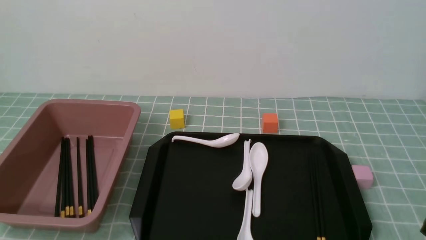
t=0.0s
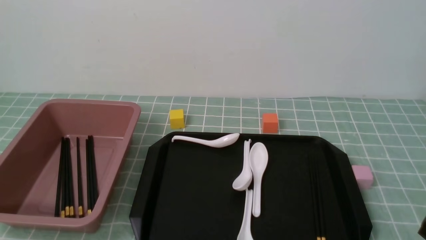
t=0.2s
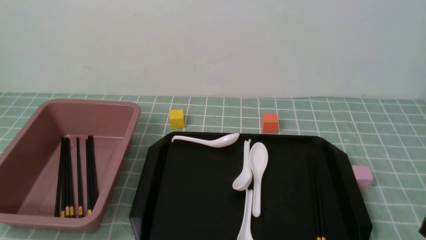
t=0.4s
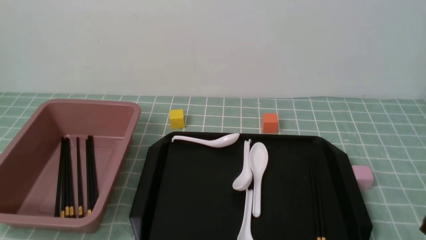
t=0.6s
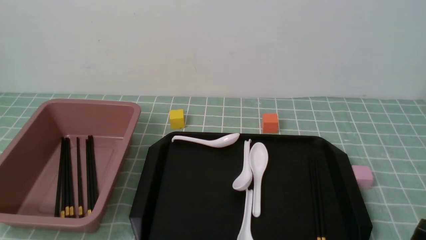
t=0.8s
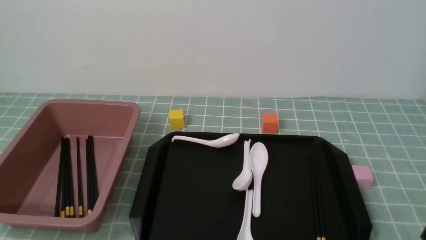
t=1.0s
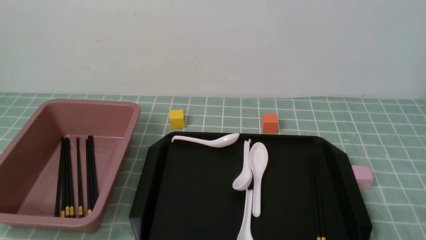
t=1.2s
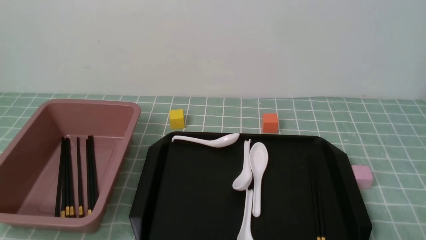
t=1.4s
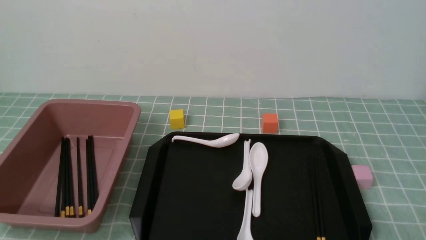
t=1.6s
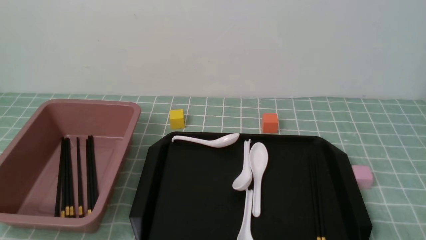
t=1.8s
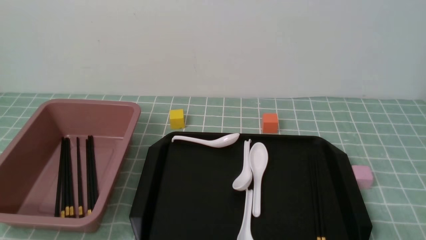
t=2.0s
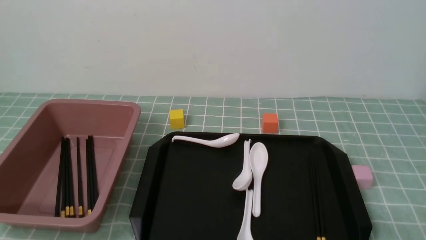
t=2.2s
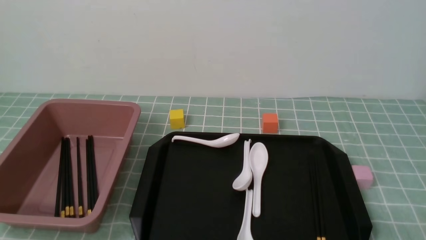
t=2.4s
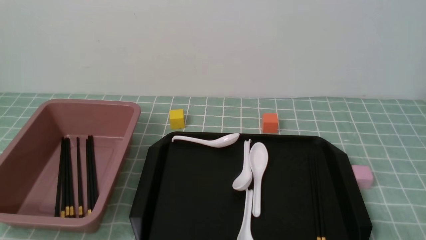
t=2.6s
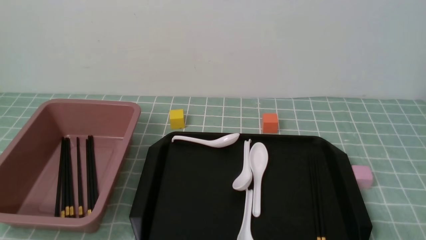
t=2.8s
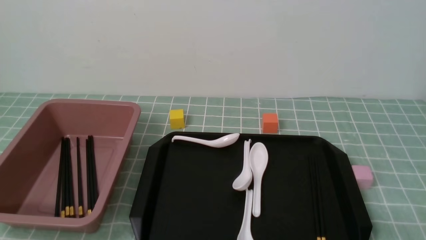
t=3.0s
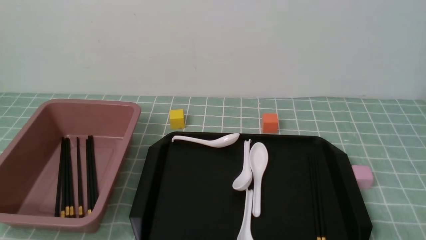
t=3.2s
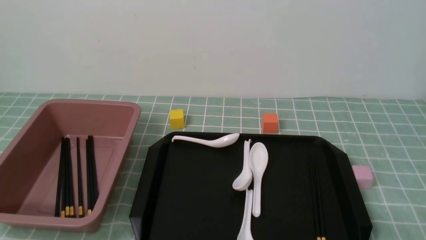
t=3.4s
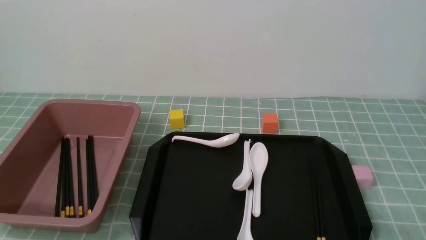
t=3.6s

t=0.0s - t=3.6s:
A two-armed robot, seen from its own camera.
t=1.8s - t=3.6s: Neither gripper changes place.

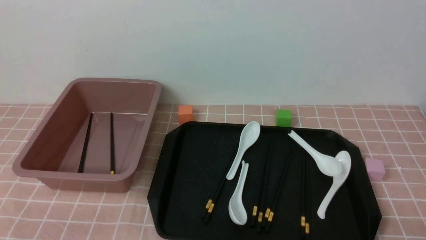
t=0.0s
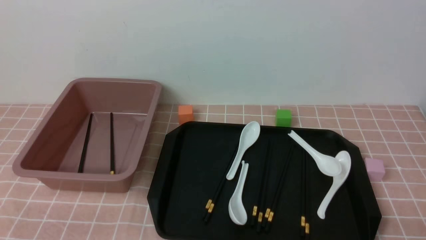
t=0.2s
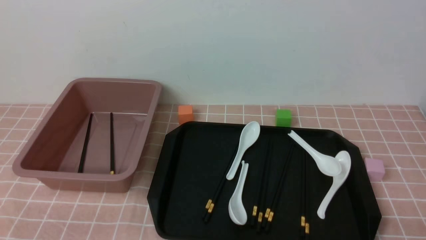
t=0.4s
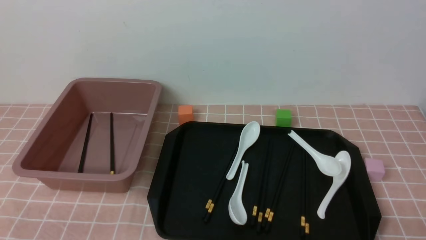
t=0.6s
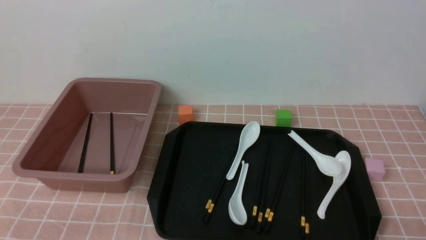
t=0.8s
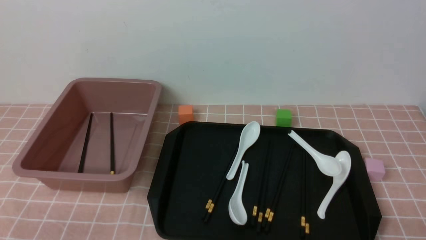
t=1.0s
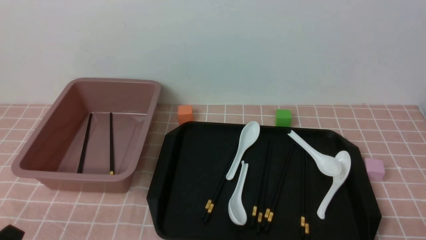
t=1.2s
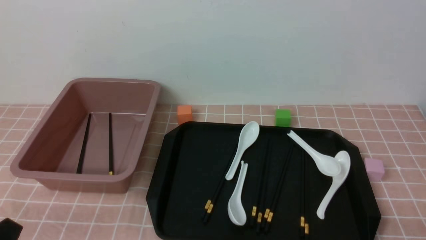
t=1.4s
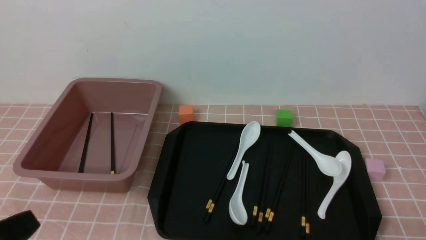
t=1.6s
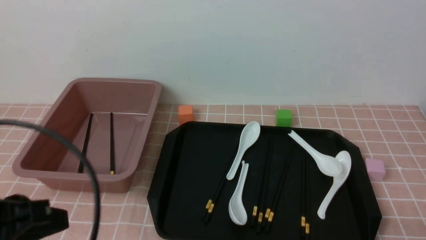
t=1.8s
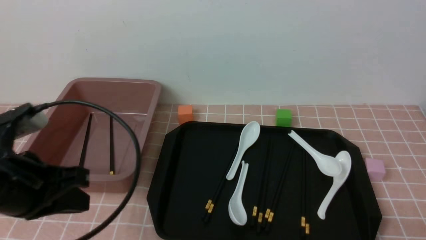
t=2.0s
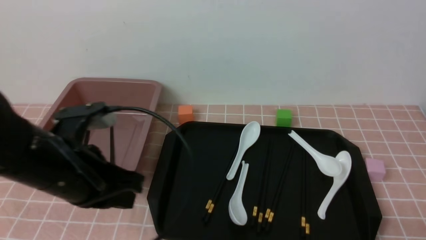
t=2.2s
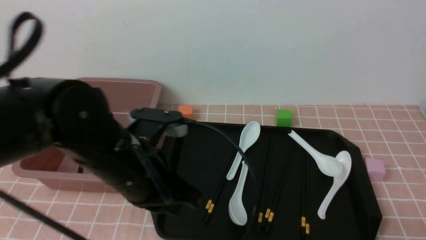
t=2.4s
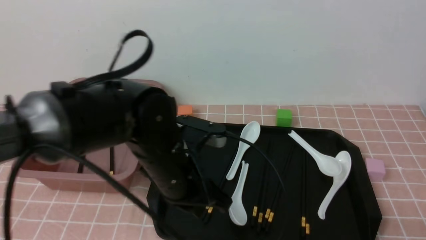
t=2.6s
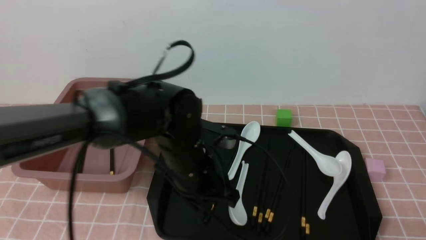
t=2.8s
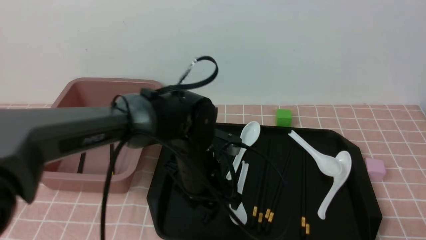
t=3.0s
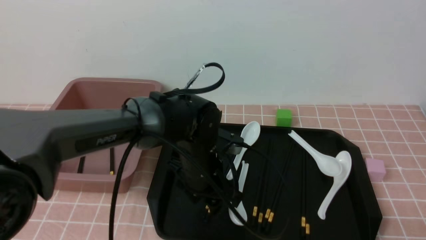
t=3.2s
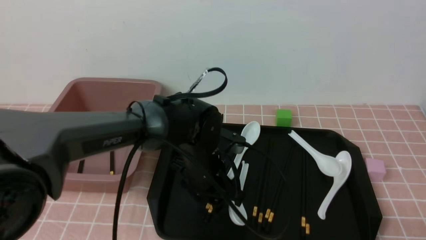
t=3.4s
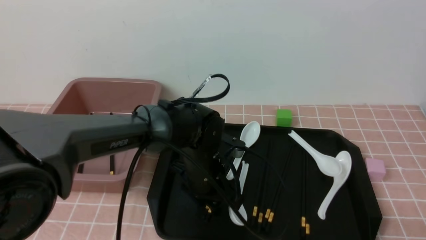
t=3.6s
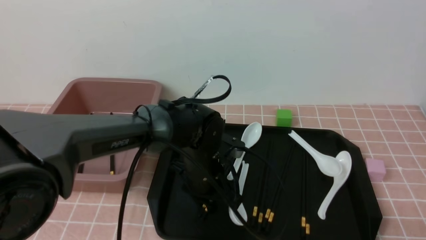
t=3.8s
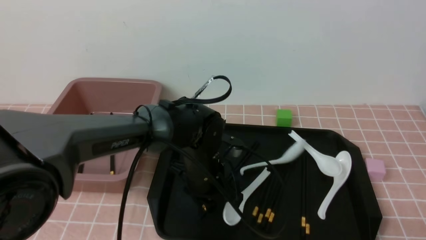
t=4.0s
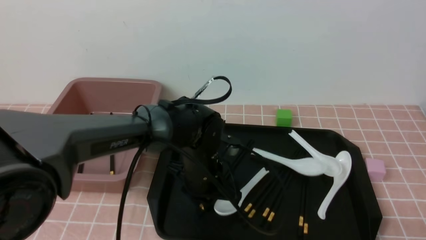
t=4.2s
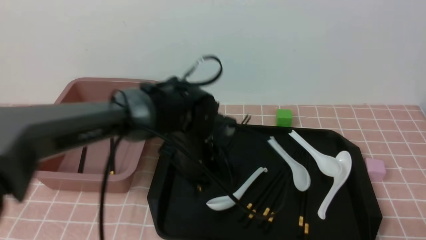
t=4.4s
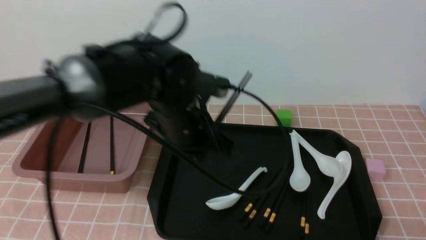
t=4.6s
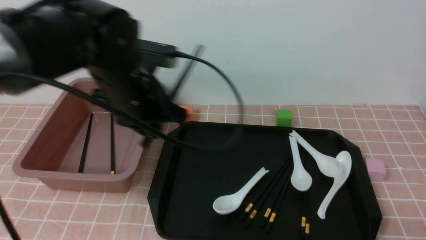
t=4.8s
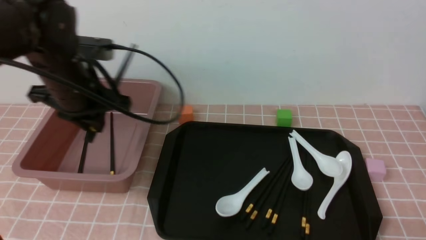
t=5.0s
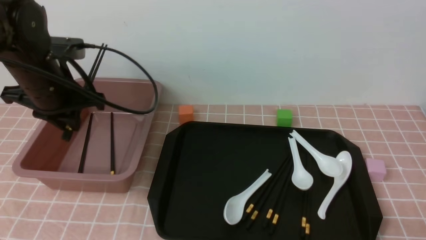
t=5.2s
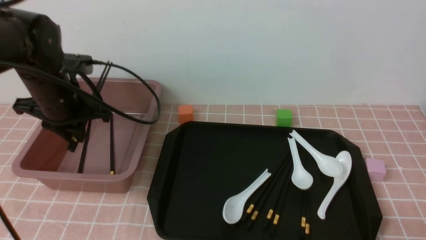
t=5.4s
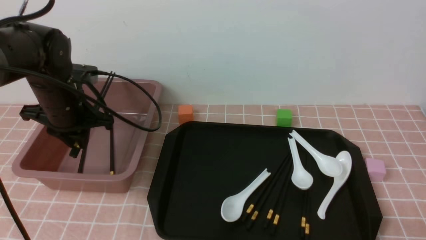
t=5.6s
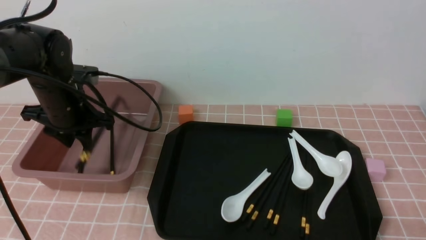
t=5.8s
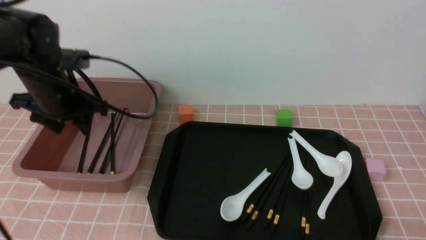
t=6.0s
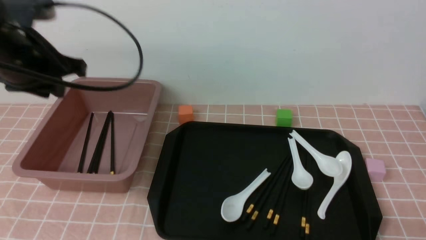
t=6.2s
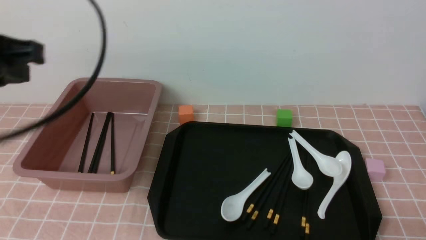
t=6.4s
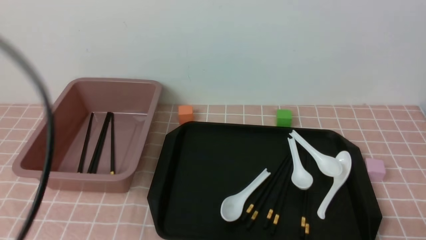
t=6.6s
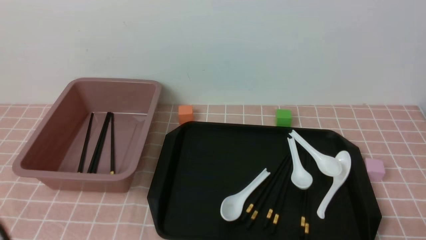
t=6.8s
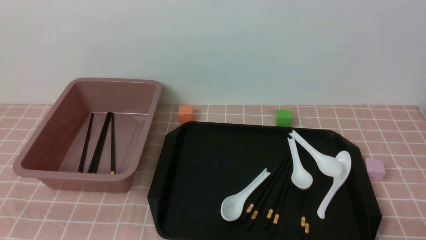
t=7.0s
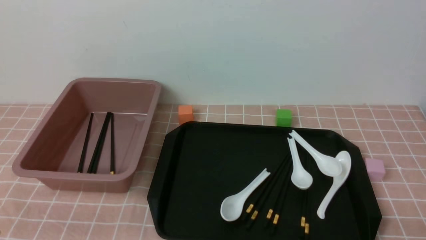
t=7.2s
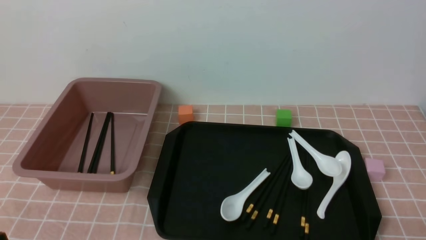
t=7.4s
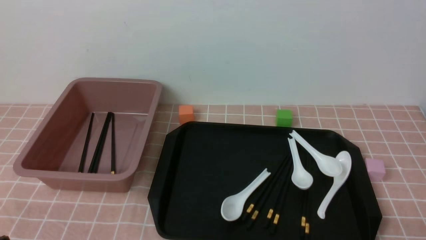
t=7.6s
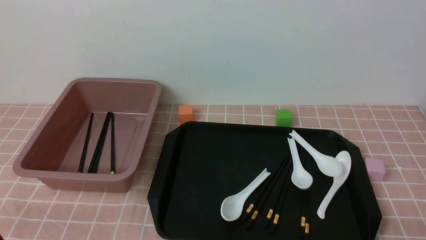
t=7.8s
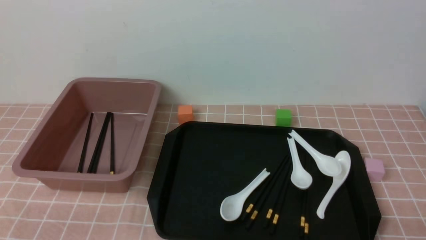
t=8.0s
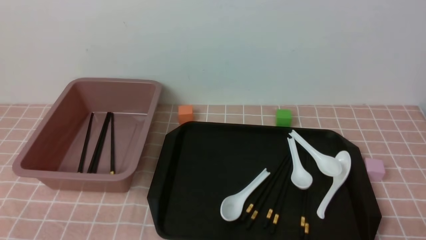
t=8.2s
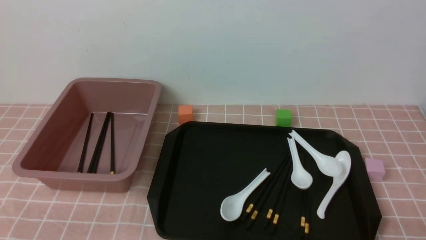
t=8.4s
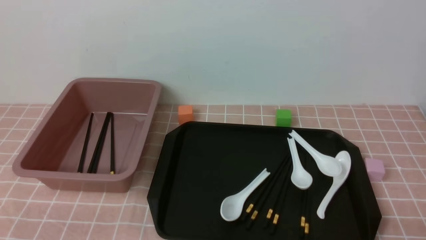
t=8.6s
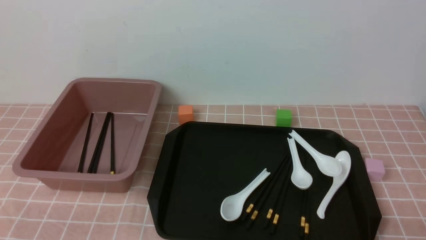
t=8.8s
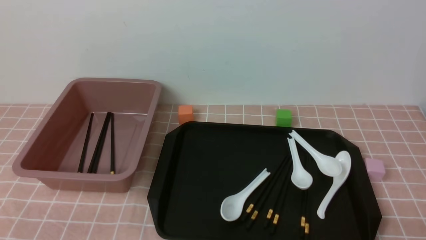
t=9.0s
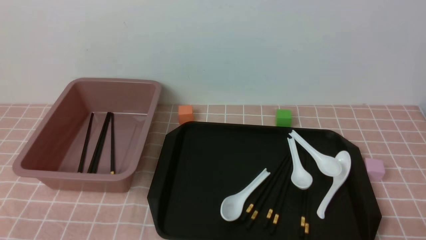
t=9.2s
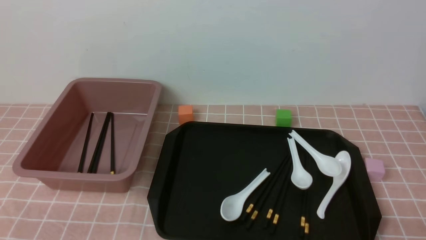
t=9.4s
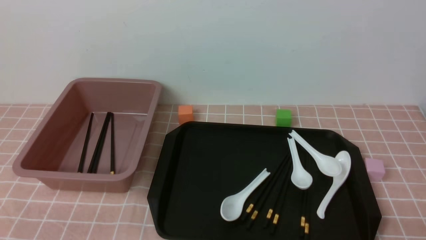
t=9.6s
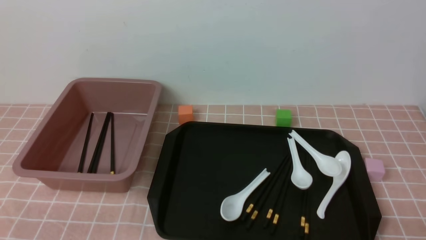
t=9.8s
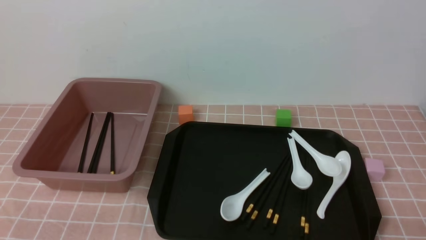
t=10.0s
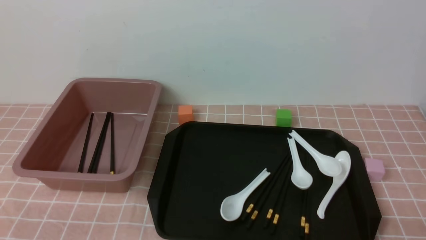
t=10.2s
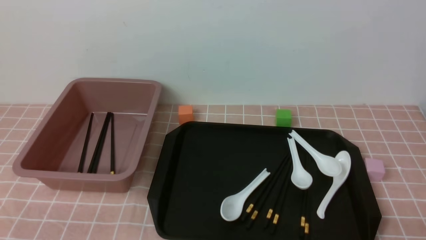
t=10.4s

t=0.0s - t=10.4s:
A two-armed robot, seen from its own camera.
Step, t=0.0s - t=4.6s: use the left arm to grab a pair of chopsticks.
Step, t=4.8s - t=6.2s: use the left arm to put the chopsticks into the lunch box.
t=1.4s - t=3.0s: The left gripper shifts roughly 35 cm forward and to the right.
t=3.0s - t=4.4s: The left gripper opens, then closes again.
t=4.4s - t=6.0s: The left gripper travels to the left and upward by about 25 cm, and opens up.
t=6.0s - t=7.4s: The left gripper travels backward by approximately 30 cm, and closes.
t=9.0s - t=10.4s: The two grippers keep their place.
